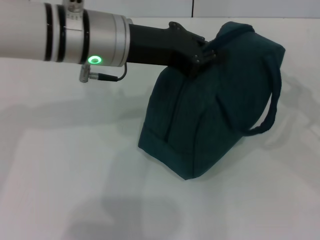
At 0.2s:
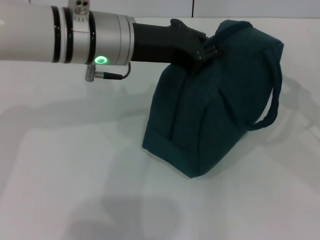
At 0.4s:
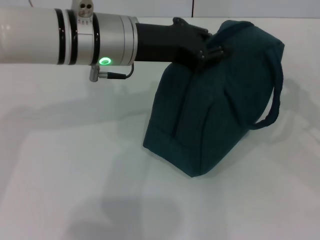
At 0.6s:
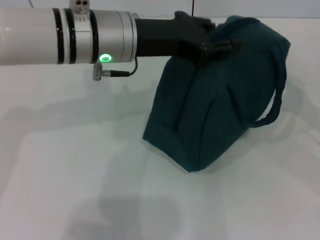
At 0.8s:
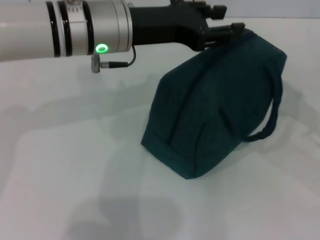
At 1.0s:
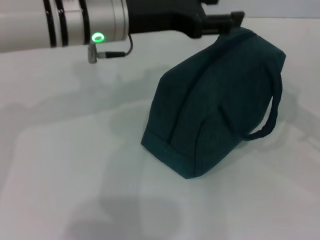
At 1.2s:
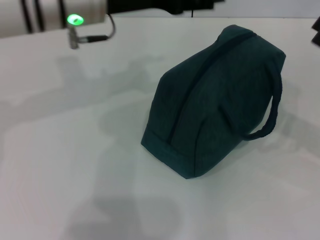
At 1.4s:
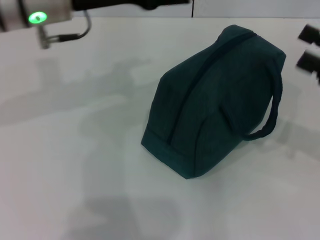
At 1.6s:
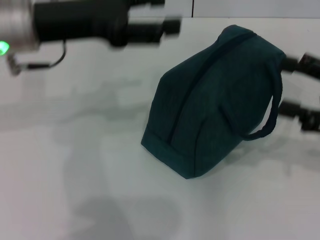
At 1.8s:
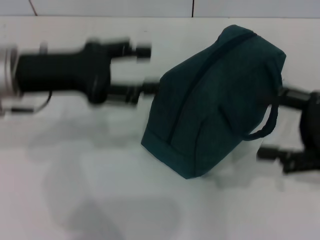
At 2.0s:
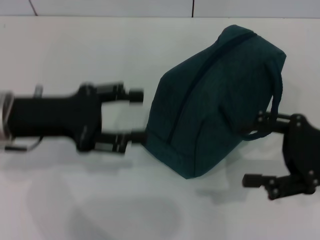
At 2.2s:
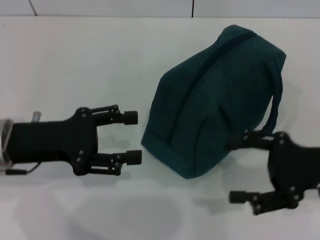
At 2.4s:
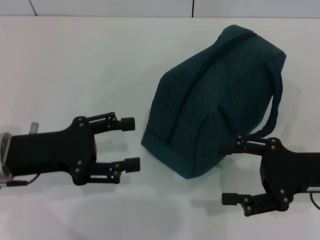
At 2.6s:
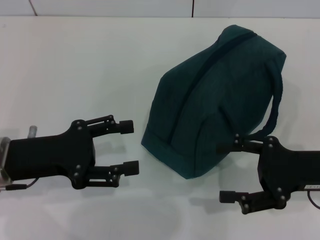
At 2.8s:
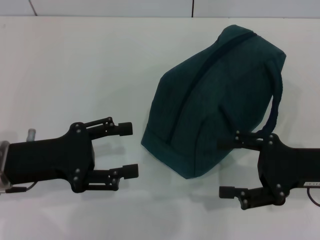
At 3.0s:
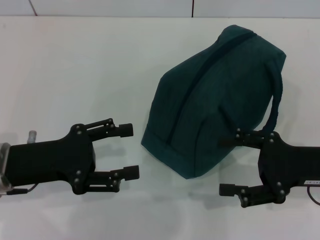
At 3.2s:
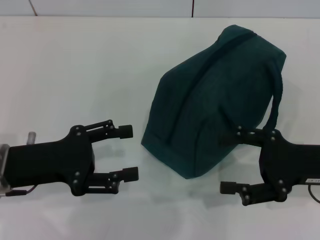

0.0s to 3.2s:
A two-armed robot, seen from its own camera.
Step, 0.0s to 0.8s: Hold the lunch bag with your left hand.
0.0s to 1.6s: The left gripper travels to the left by some 10 cm, and opens its fingers, while the right gripper moves roughly 5 cm.
1.6s to 3.2s: The left gripper is displaced downward and backward by about 15 cm; the right gripper goes about 10 cm downward and to the left.
